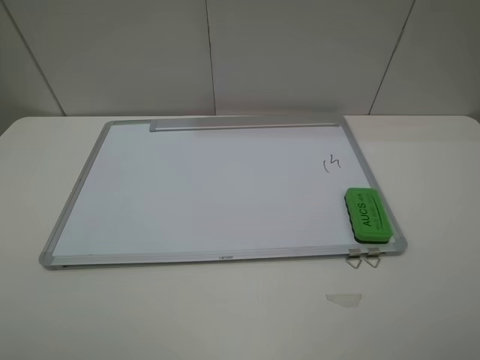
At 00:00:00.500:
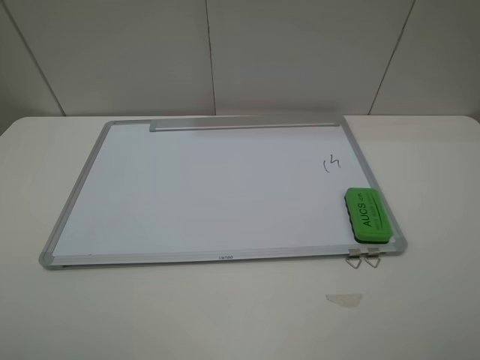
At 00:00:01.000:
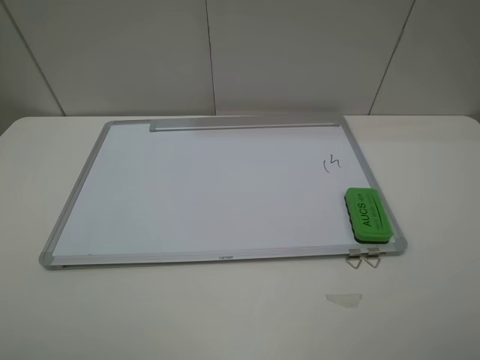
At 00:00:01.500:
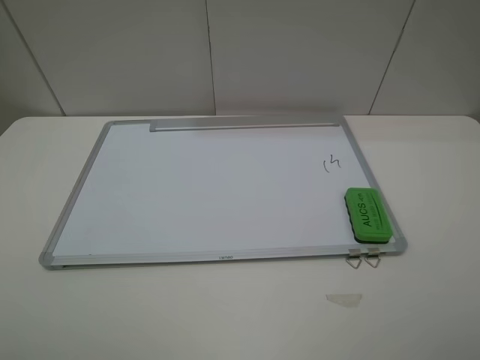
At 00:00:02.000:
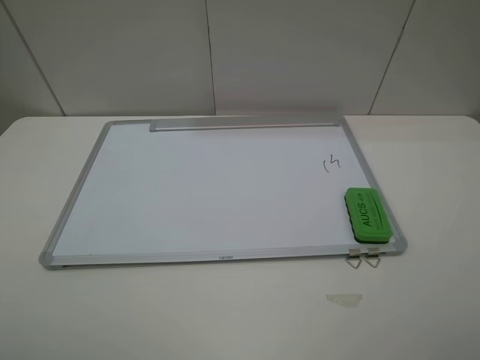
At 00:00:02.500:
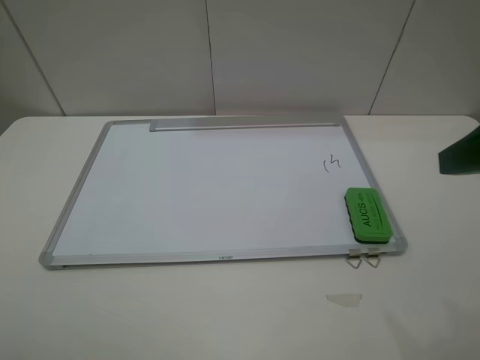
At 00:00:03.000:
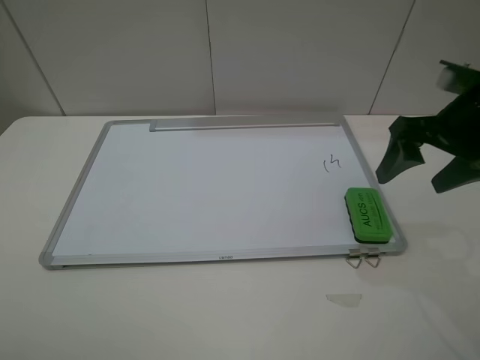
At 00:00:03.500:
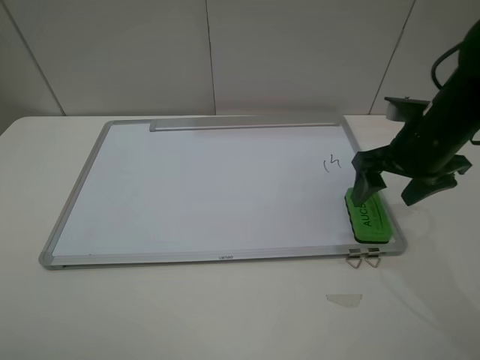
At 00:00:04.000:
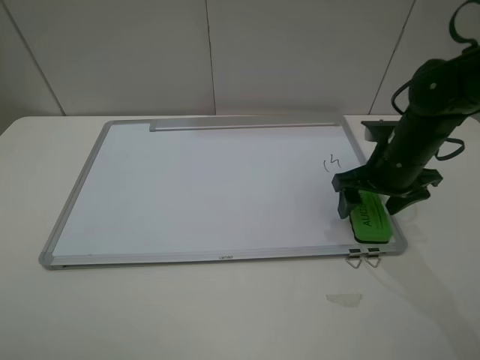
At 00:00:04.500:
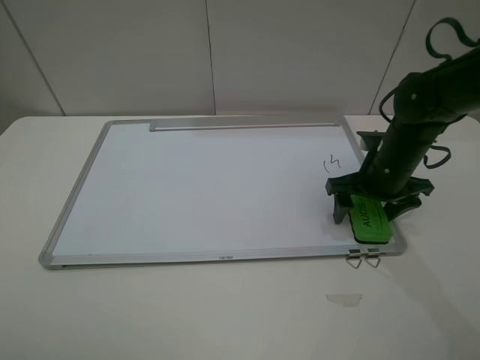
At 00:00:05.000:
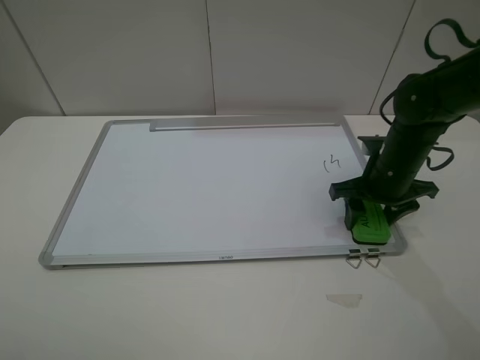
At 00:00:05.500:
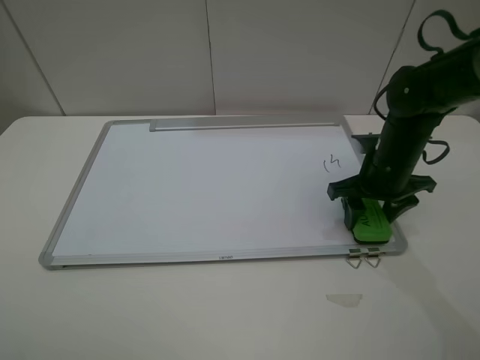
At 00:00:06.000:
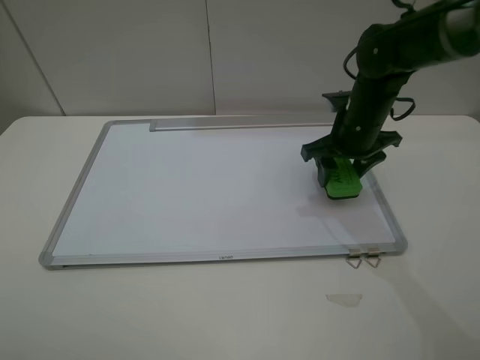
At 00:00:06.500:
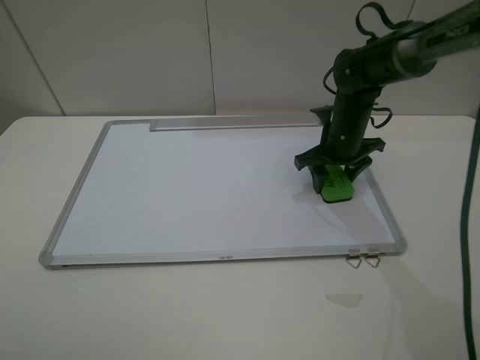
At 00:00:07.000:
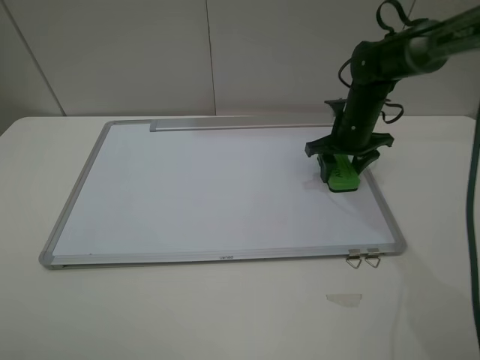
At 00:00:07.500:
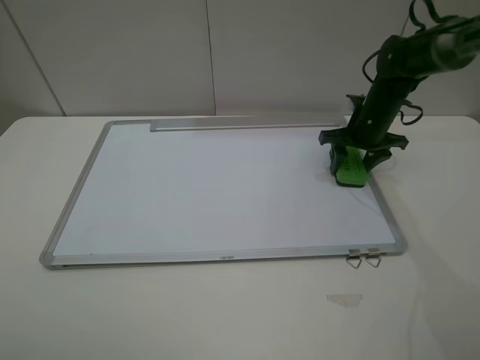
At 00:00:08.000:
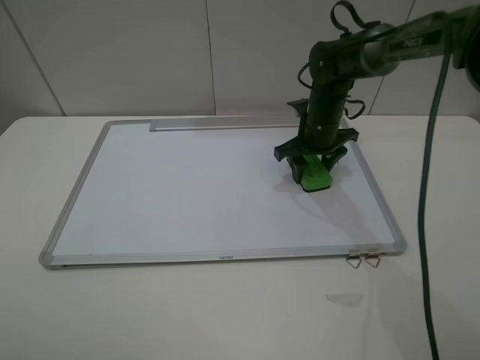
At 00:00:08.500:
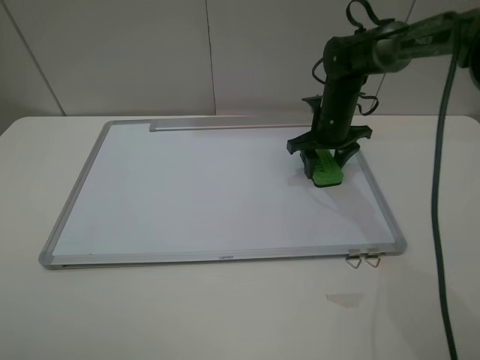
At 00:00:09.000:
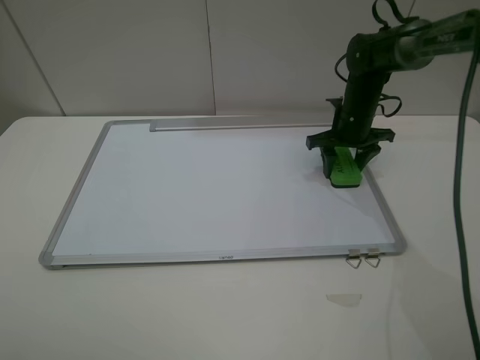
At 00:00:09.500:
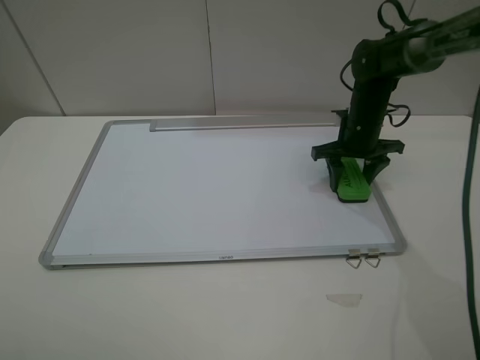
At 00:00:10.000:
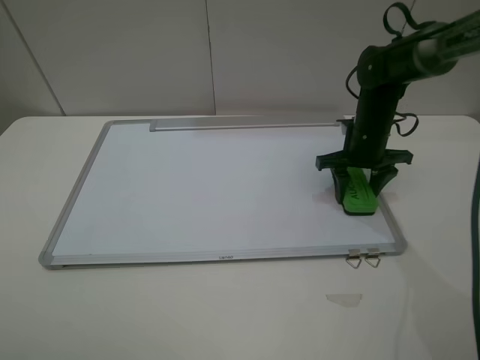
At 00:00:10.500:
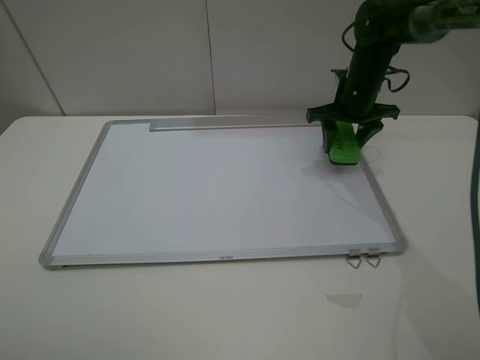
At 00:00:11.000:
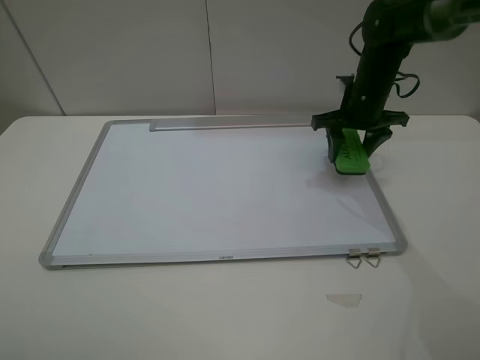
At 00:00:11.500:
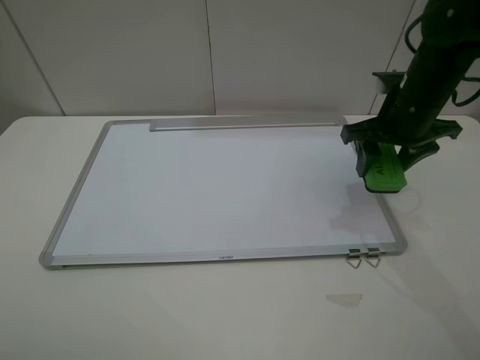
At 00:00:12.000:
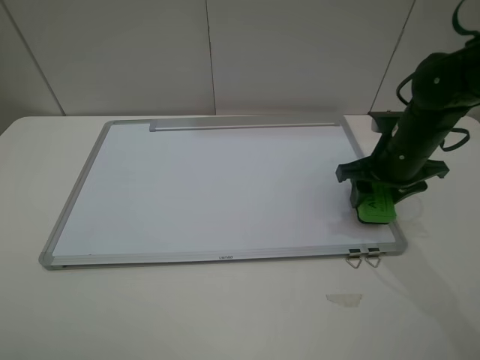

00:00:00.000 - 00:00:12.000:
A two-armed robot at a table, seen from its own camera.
Step, 00:00:00.000 - 00:00:05.000: Grasp the eraser with the right gripper.
Step, 00:00:05.500 - 00:00:10.000: Grasp the eraser and wipe the blackboard with the right gripper.
00:00:02.000 - 00:00:04.000: The right gripper moves forward and downward, about 35 cm.
00:00:04.000 - 00:00:06.000: The right gripper heads forward, covering approximately 5 cm, and closes its fingers.
00:00:06.000 - 00:00:08.000: The right gripper is displaced forward and downward by some 10 cm.
00:00:08.000 - 00:00:10.000: The right gripper is displaced to the right by roughly 10 cm.
00:00:10.000 - 00:00:12.000: The right gripper moves backward, roughly 10 cm.

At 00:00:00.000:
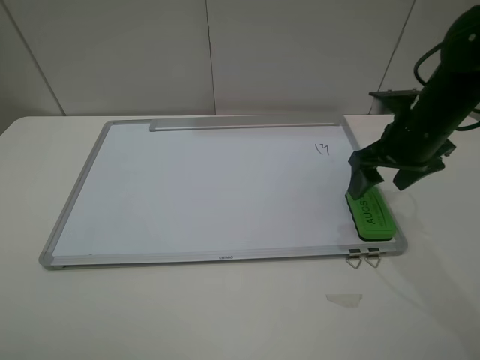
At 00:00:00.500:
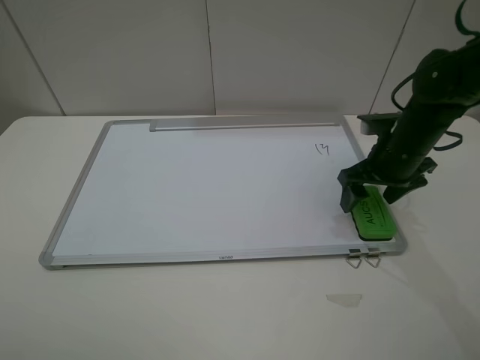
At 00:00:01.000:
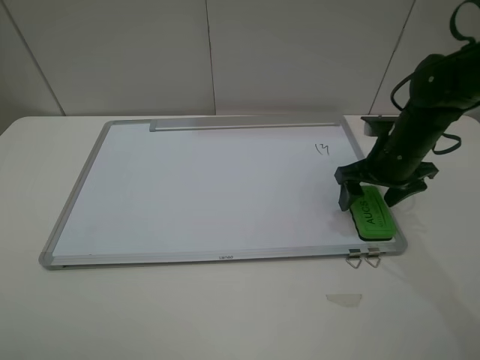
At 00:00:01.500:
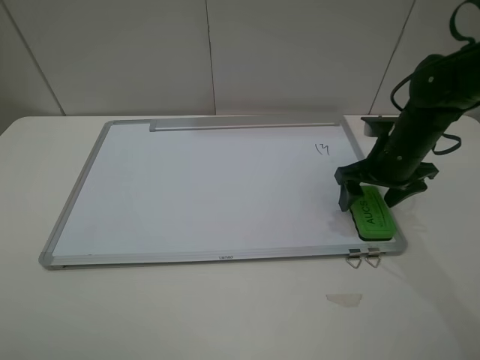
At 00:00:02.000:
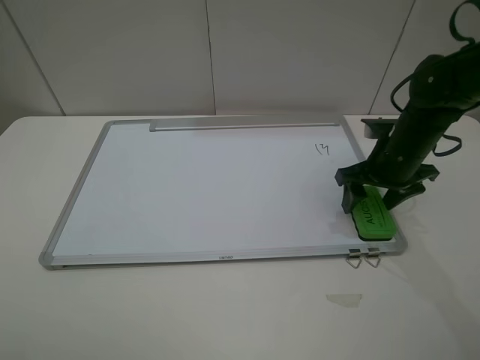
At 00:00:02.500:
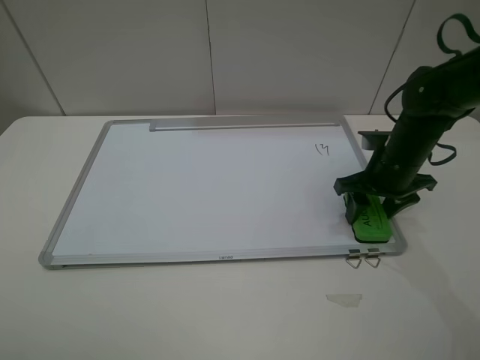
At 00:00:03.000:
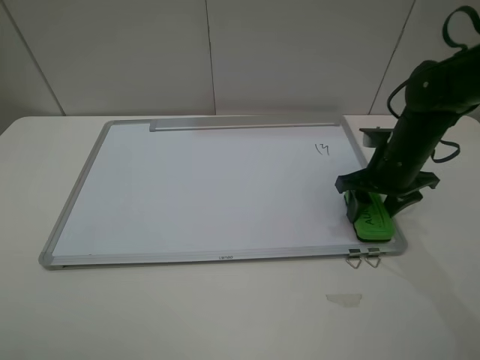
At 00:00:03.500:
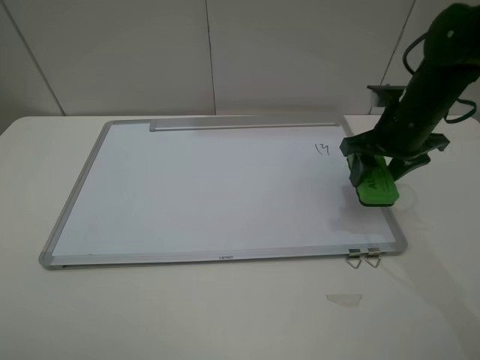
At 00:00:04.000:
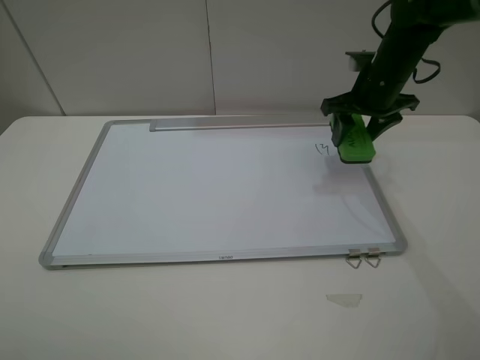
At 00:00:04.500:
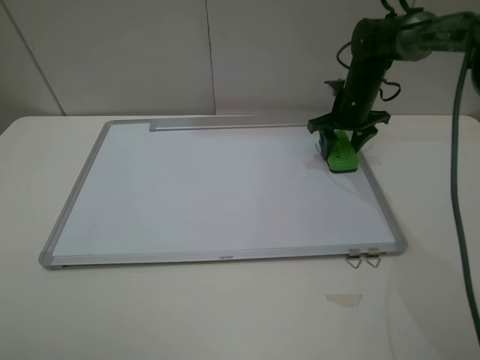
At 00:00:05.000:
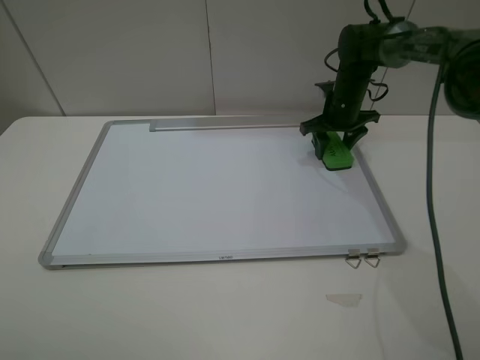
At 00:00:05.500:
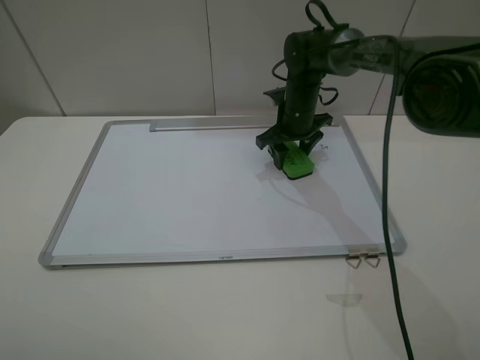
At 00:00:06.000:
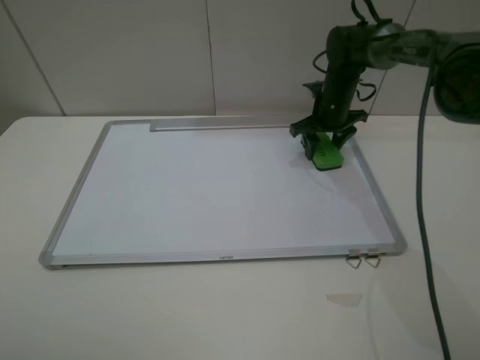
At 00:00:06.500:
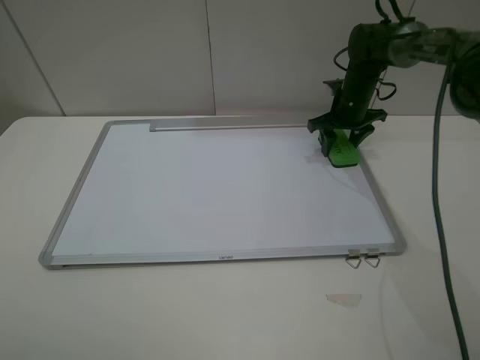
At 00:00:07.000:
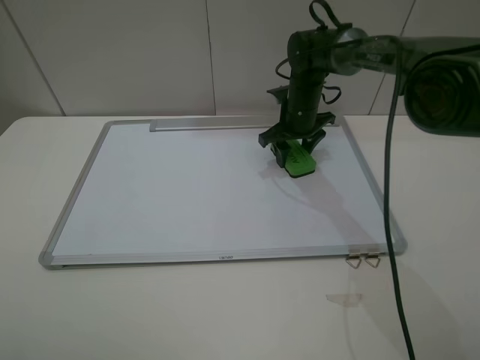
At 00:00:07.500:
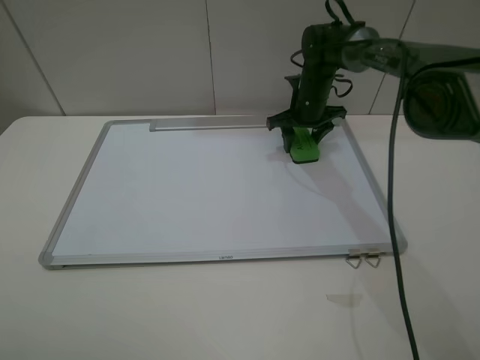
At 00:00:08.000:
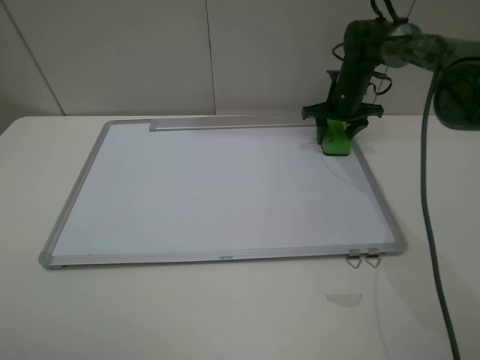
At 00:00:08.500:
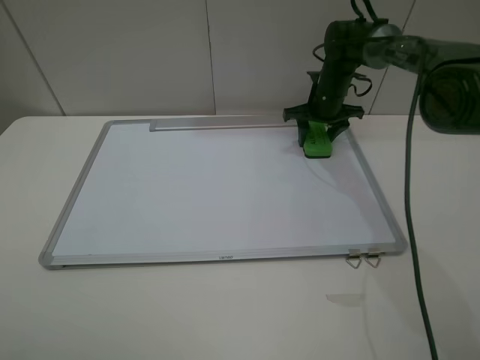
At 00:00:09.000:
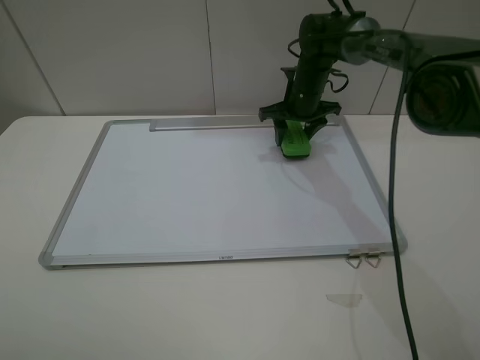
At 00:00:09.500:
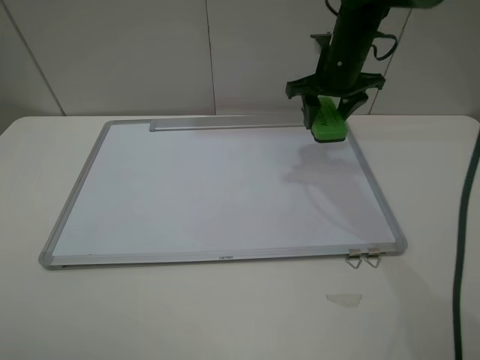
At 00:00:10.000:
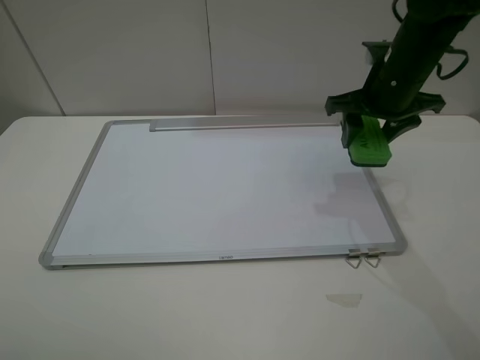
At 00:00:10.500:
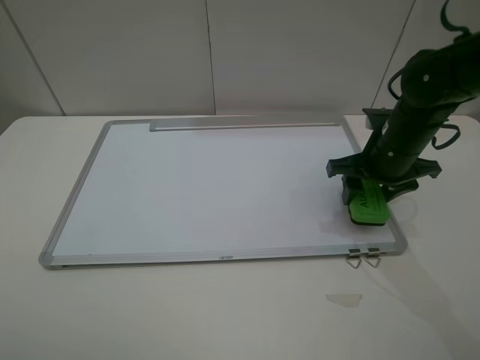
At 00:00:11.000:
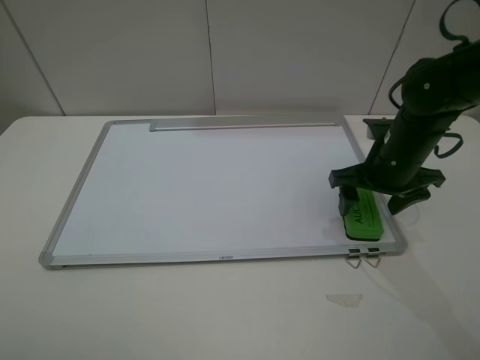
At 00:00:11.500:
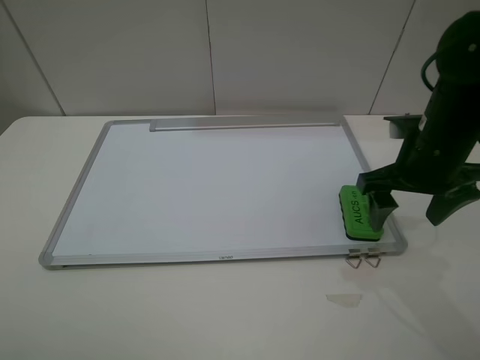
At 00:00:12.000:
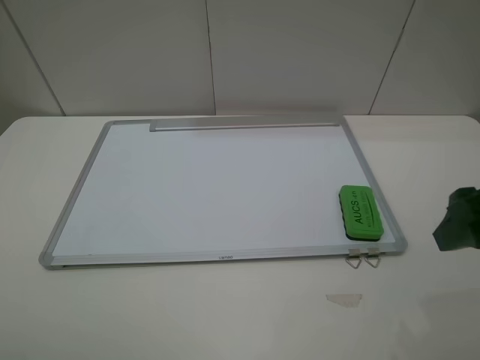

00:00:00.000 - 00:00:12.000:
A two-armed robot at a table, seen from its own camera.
Step, 00:00:00.000 - 00:00:02.500: Grasp the eraser with the right gripper.
Step, 00:00:03.000 - 00:00:08.500: Grasp the eraser and wipe the blackboard with the right gripper.
Step, 00:00:09.000 - 00:00:11.000: Place the eraser with the right gripper.
00:00:00.000 - 00:00:02.000: The right gripper shifts by some 5 cm, and closes.
00:00:02.000 - 00:00:04.000: The right gripper heads forward and upward, covering approximately 10 cm, and closes its fingers.
00:00:04.000 - 00:00:06.000: The right gripper travels downward and forward by some 10 cm, and moves roughly 10 cm to the left and comes back.
00:00:06.000 - 00:00:08.000: The right gripper reaches about 10 cm to the left, then returns.
00:00:08.000 - 00:00:10.000: The right gripper travels backward and upward by about 20 cm.
00:00:10.000 - 00:00:12.000: The right gripper moves backward, about 20 cm, and opens its fingers.

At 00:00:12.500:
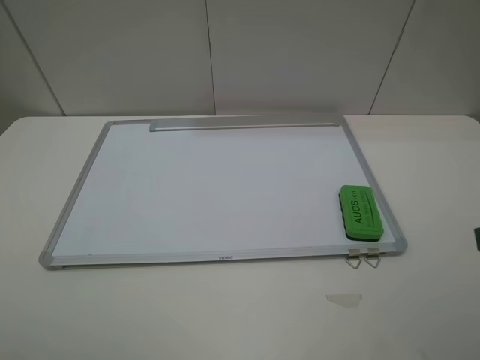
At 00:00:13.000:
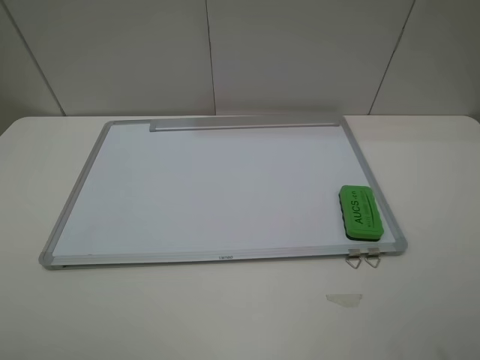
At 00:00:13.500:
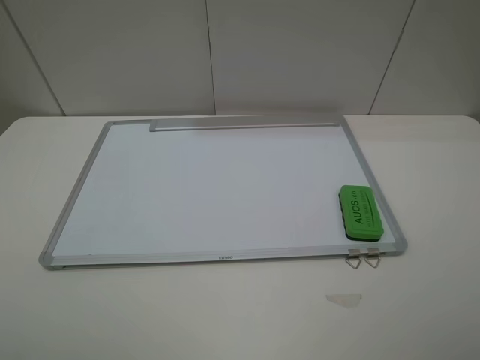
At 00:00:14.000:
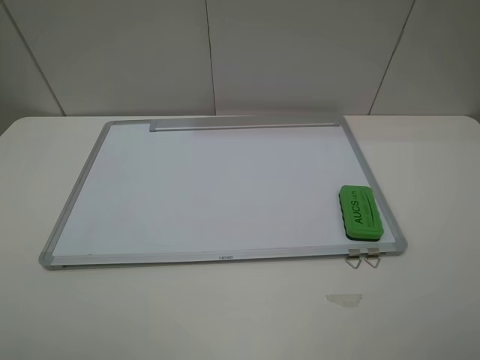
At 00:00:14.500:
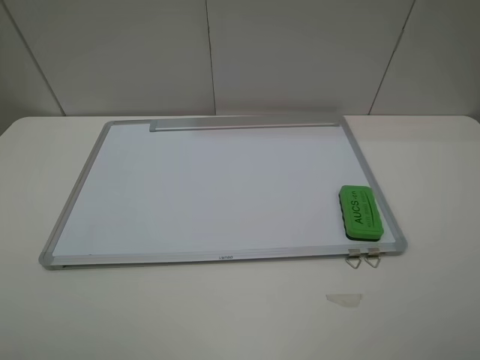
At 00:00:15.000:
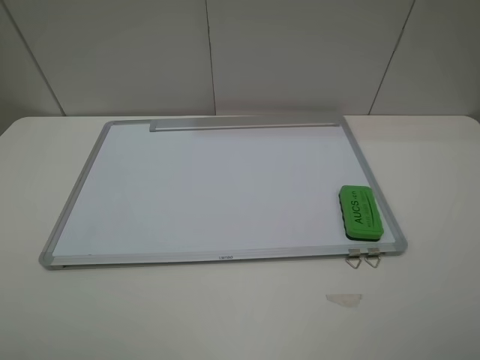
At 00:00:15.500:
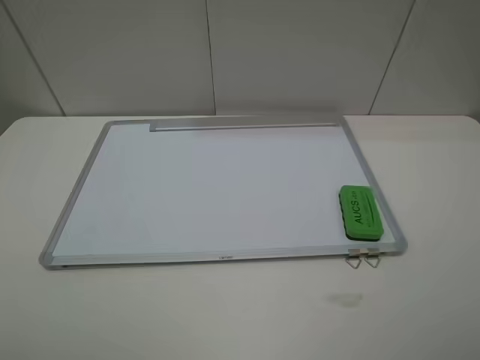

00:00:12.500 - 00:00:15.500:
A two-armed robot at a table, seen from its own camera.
00:00:14.000 - 00:00:15.500: Neither gripper changes place.
